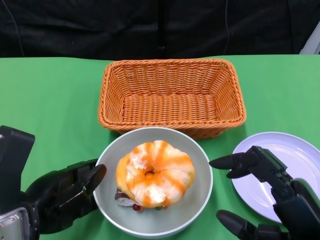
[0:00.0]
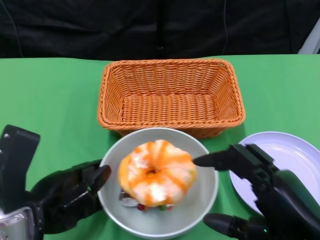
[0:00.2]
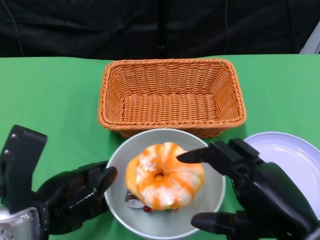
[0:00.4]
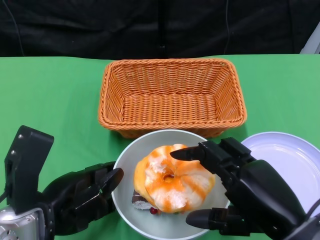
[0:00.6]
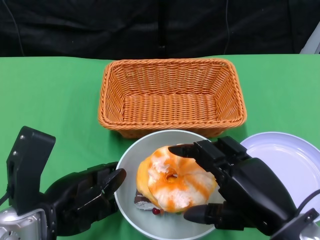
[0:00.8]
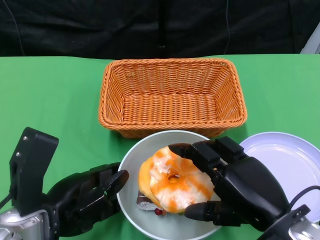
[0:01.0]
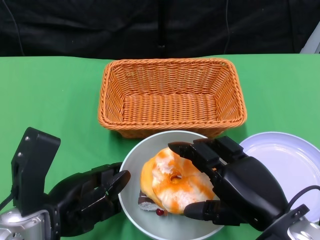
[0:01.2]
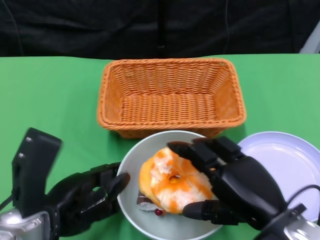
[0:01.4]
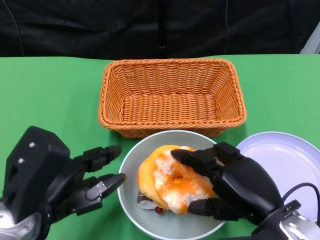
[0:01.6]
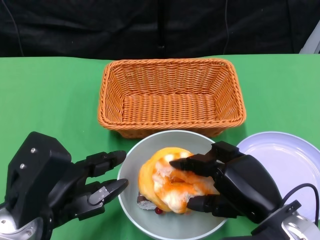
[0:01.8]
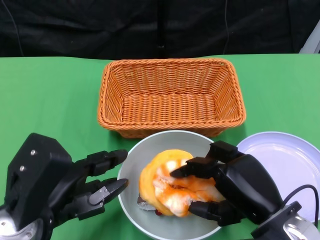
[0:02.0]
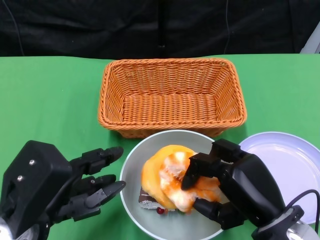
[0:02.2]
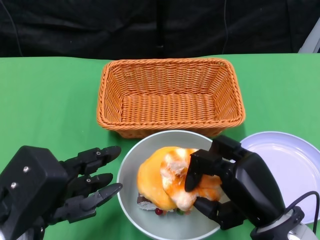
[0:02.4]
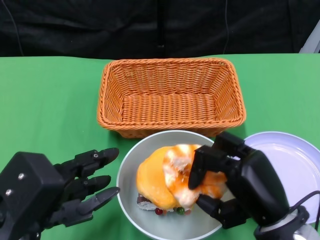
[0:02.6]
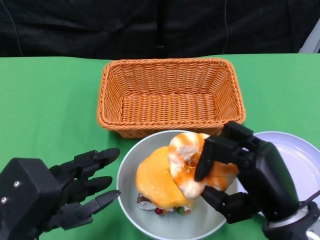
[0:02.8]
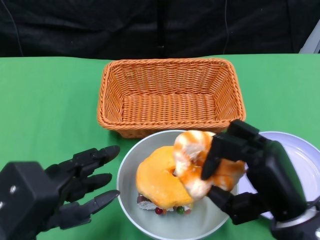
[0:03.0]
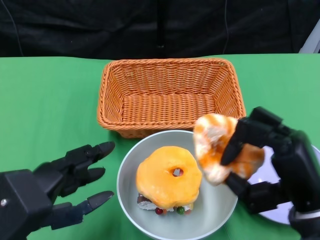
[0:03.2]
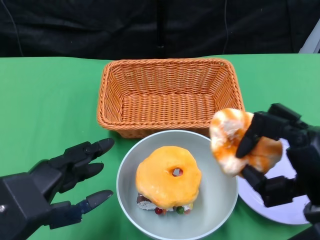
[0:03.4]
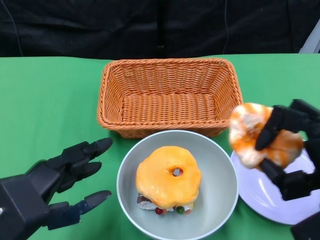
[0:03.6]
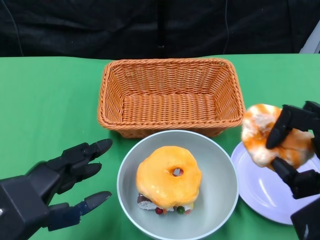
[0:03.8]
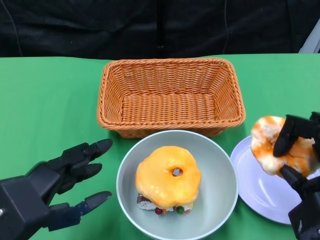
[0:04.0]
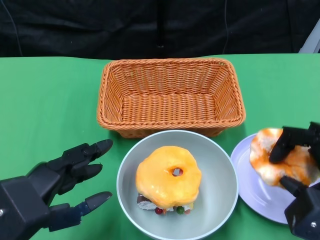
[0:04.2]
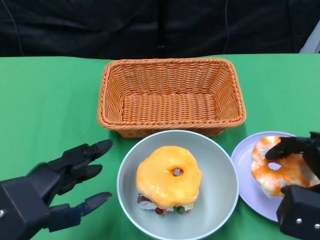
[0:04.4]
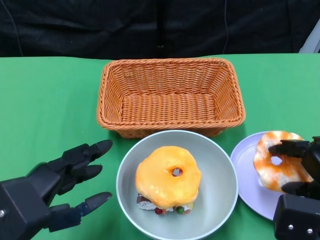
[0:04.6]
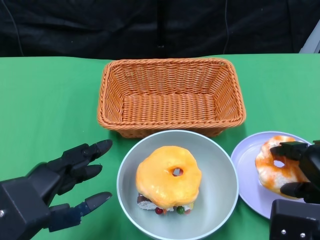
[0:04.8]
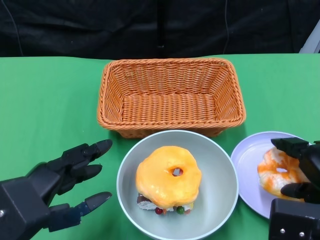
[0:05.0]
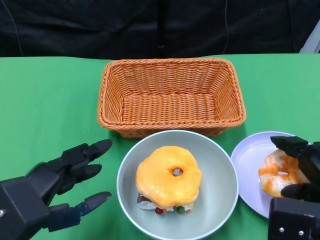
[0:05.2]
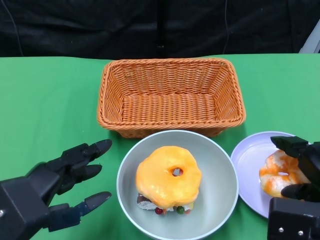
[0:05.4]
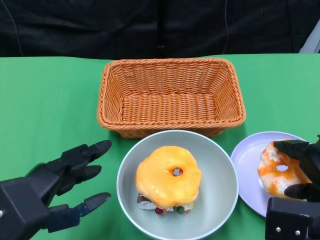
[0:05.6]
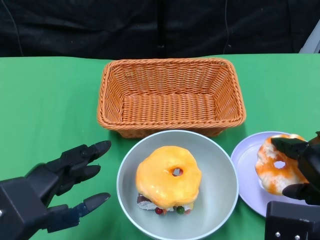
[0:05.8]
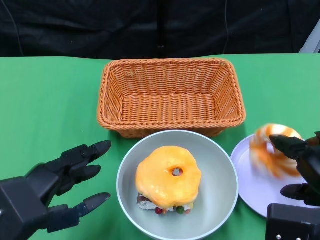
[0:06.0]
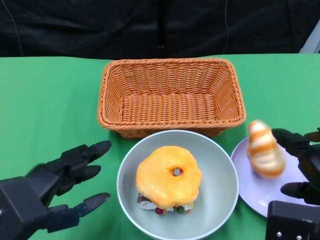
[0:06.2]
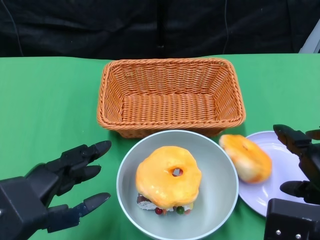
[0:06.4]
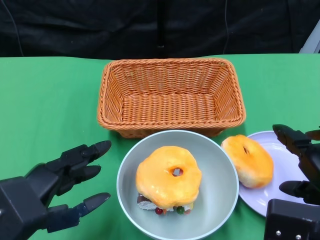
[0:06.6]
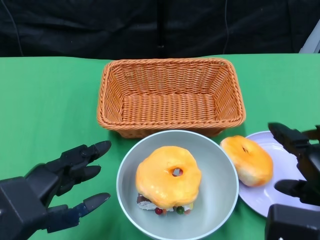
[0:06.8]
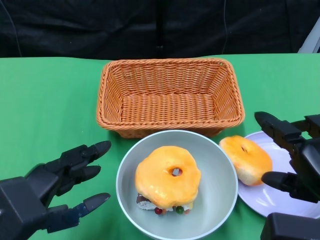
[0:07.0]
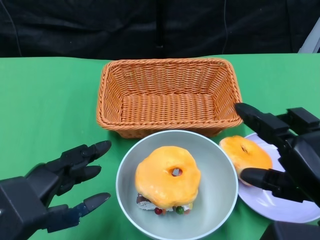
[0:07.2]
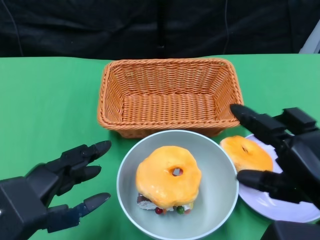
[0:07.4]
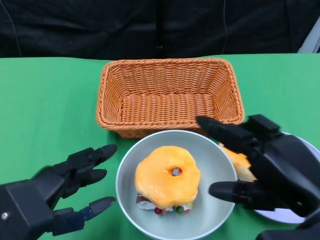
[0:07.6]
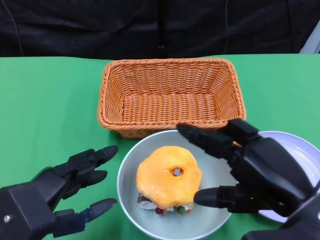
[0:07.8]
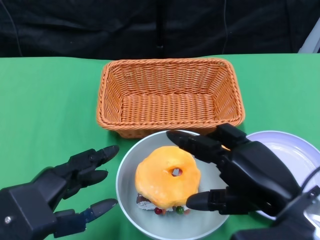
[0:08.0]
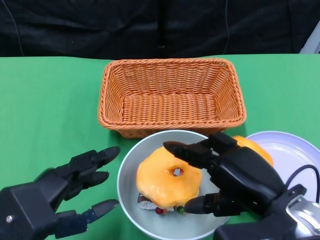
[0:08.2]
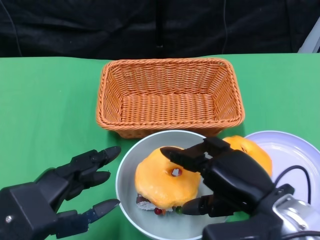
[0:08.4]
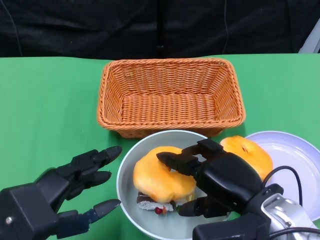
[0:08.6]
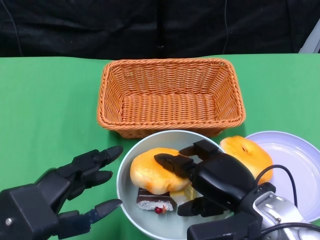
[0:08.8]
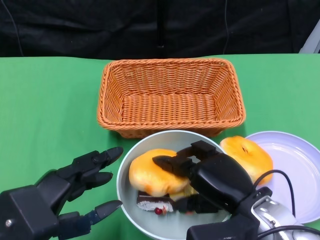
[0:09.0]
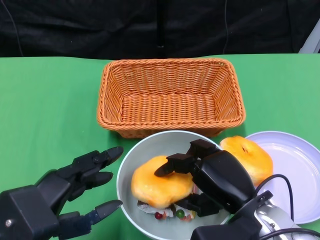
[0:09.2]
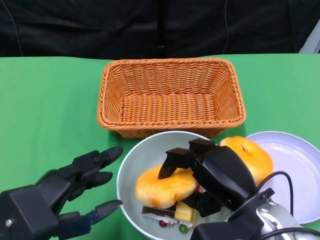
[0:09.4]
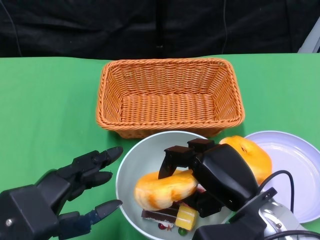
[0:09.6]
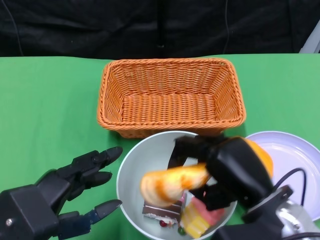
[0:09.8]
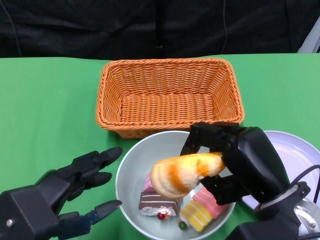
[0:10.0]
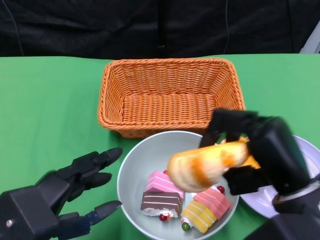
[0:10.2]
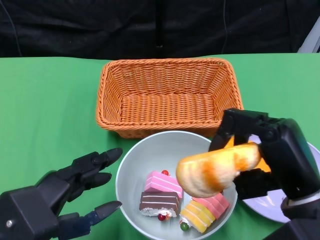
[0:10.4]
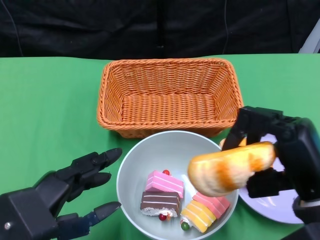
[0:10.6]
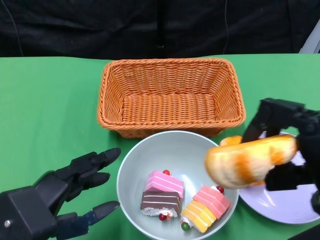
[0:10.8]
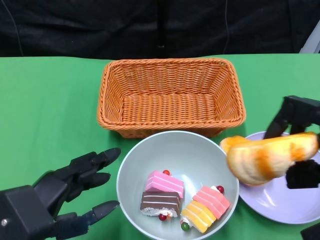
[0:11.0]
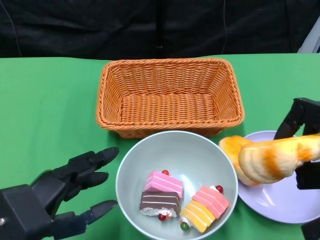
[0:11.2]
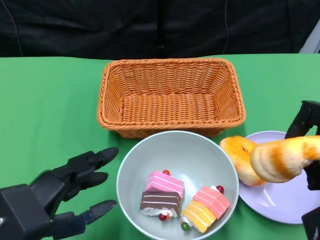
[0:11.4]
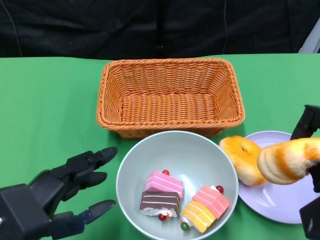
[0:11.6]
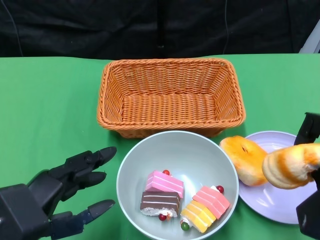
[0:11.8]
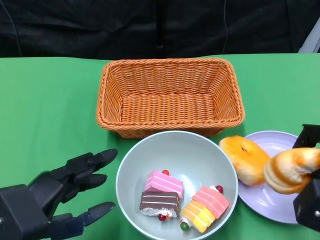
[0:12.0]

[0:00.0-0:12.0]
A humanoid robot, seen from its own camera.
0:00.0 to 0:01.6: The right hand shifts approximately 5 cm forward.
0:03.0 to 0:04.4: The right hand goes approximately 10 cm to the right.
0:06.0 to 0:07.6: The right hand shifts by about 5 cm.
0:07.6 to 0:09.0: The right hand travels downward, to the left and forward by some 10 cm.
0:09.0 to 0:10.4: The right hand is displaced upward and to the right by approximately 10 cm.
0:10.4 to 0:12.0: The right hand goes some 10 cm to the right.

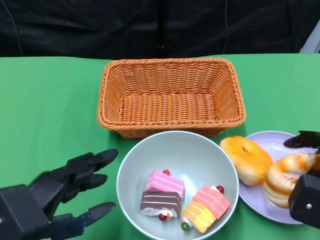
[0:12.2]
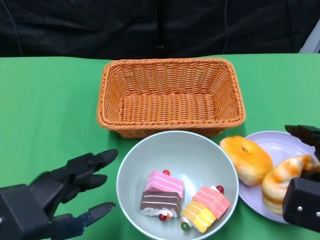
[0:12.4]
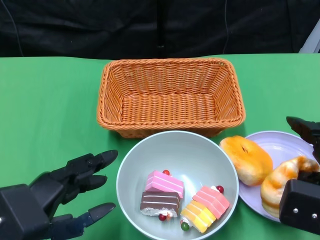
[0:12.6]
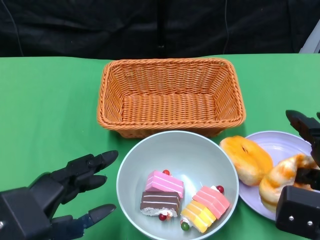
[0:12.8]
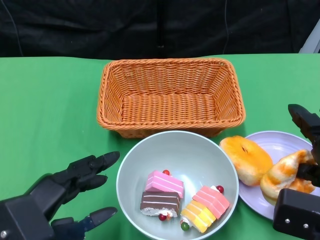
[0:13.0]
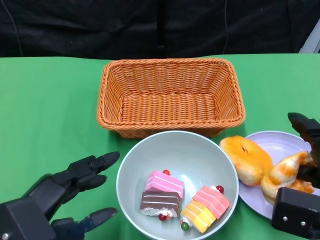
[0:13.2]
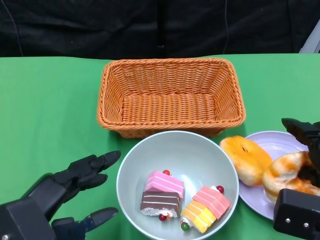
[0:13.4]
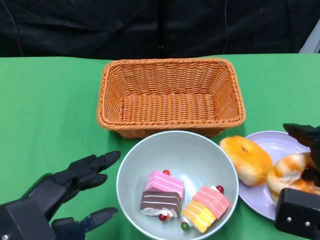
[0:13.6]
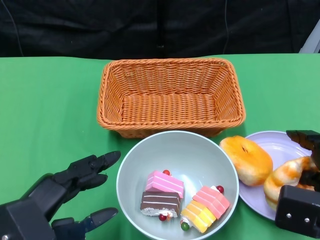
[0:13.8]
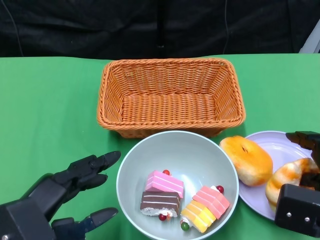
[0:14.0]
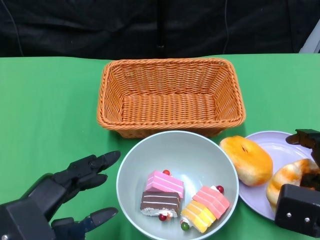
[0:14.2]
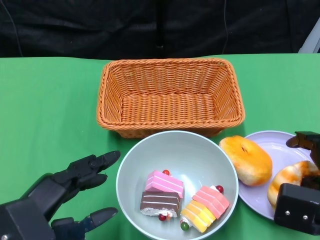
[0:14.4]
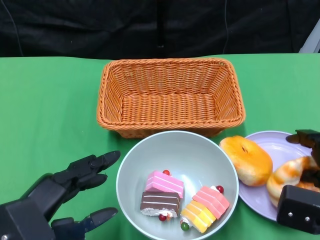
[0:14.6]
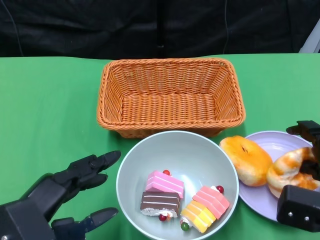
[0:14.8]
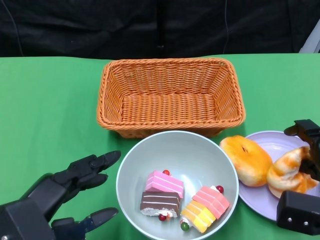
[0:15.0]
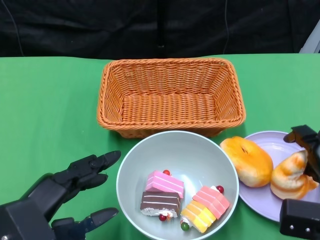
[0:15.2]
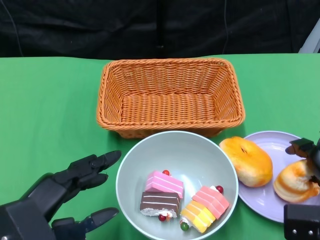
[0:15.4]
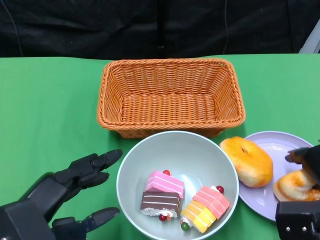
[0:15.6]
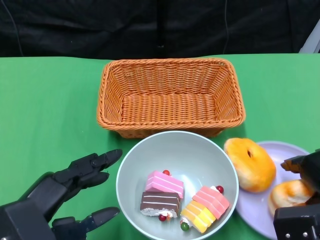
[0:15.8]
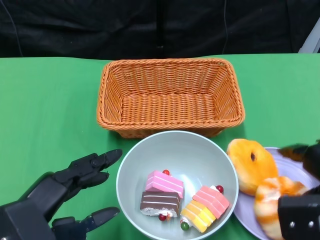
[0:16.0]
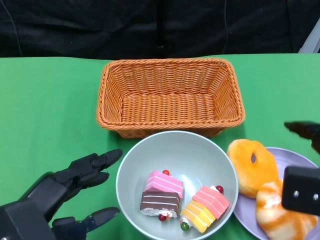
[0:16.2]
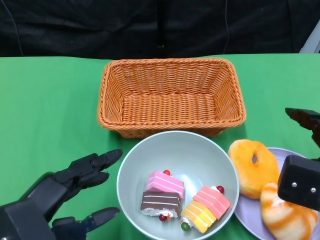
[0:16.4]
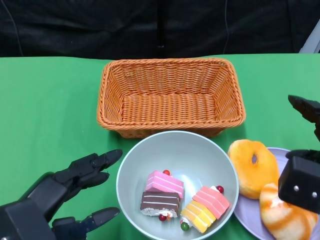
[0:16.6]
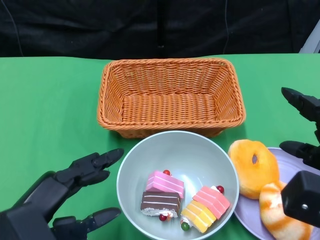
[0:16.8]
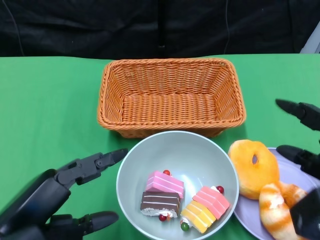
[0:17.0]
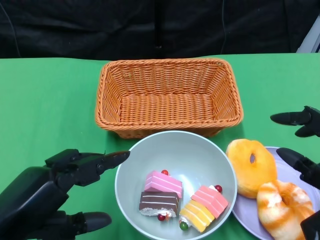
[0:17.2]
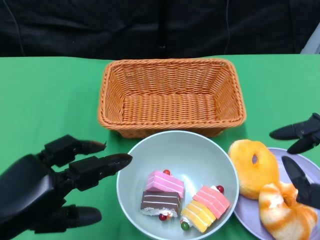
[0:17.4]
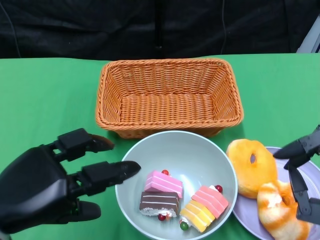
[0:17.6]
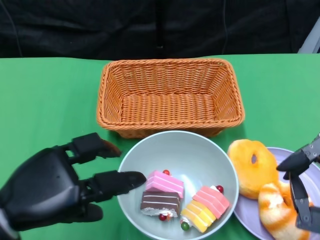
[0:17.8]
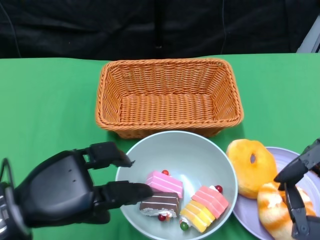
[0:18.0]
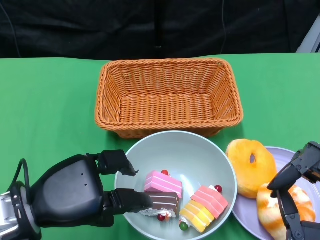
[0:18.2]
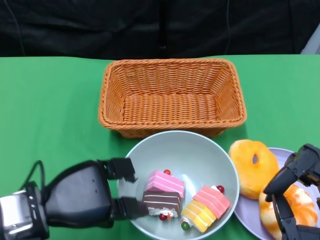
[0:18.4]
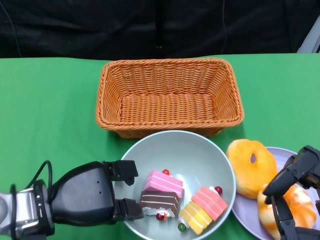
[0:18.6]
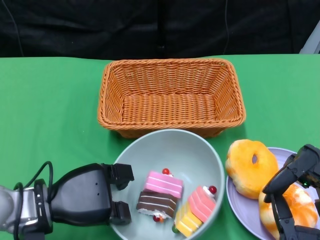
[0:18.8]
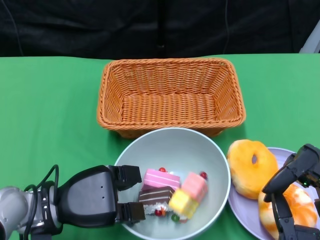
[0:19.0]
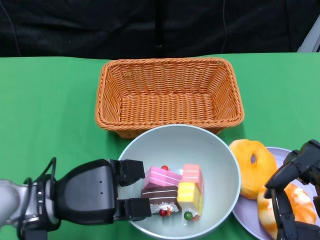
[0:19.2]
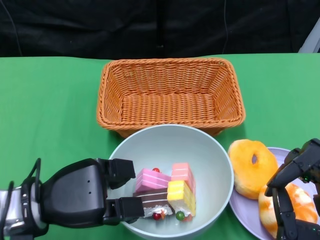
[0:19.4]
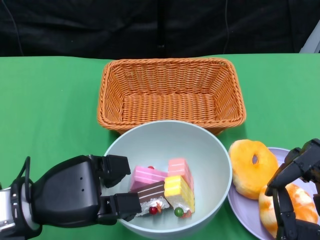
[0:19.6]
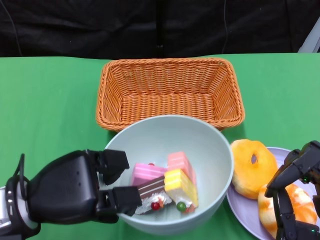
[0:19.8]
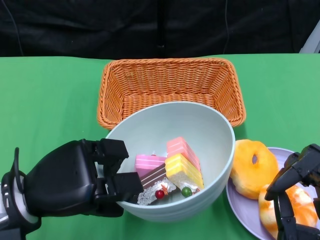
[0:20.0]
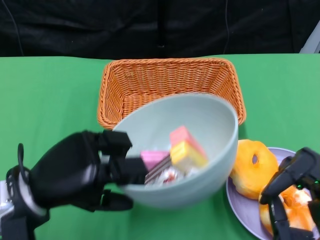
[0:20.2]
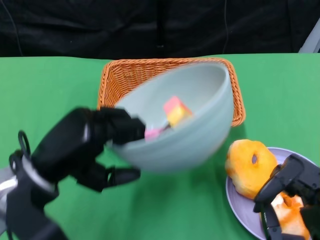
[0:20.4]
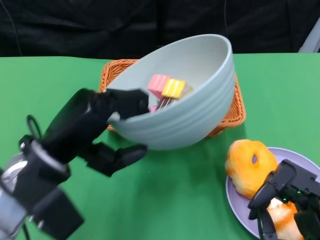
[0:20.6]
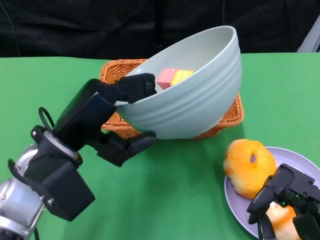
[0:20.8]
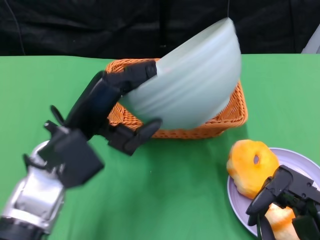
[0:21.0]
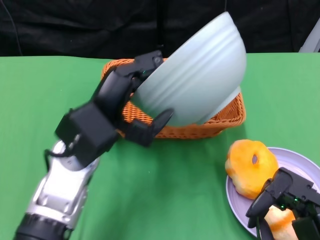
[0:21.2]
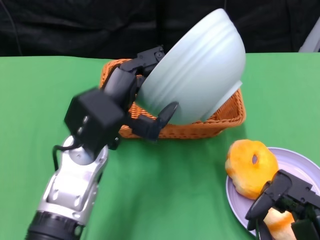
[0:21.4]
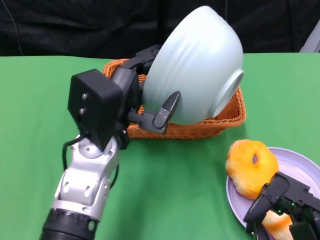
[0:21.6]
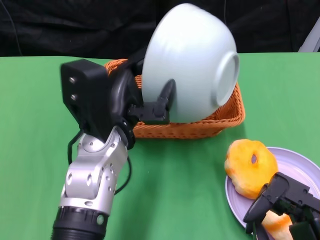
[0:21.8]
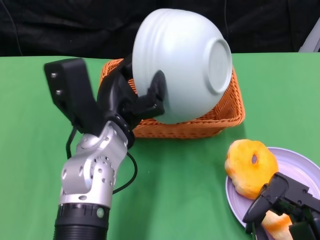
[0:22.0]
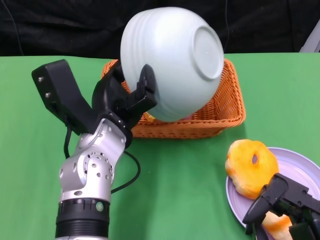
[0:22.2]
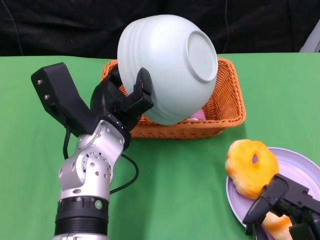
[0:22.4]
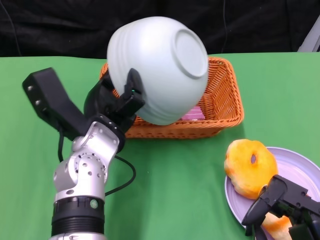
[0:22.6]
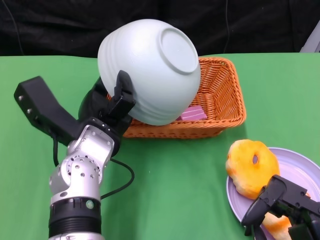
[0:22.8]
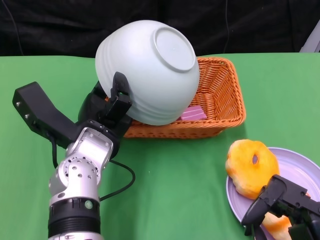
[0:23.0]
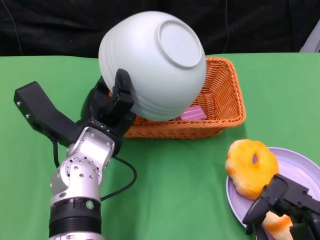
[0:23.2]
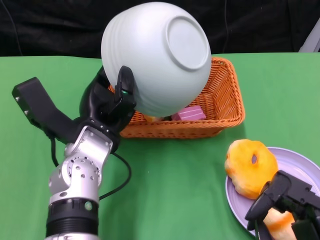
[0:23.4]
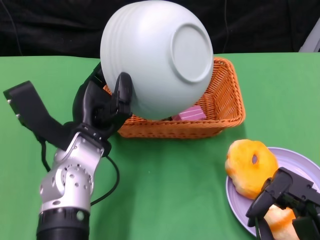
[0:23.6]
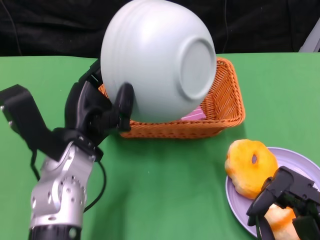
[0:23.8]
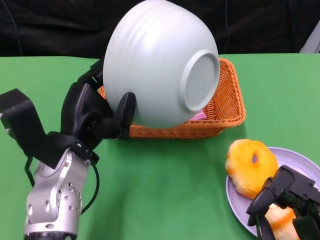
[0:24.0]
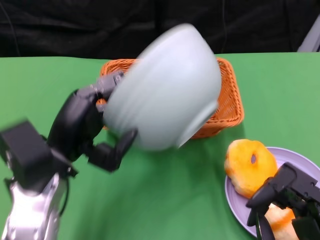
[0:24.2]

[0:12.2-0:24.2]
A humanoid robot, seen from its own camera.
Step, 0:12.2 to 0:16.4: Pick up the bread with the right gripper and place it on the plate.
Step, 0:16.6 to 0:19.2: Grasp the bowl with the left gripper.
Step, 0:19.4 to 0:23.2: Pour the cake into the basket with the left gripper.
0:12.2 to 0:13.8: There are only small adjustments of the hands.
0:13.8 to 0:15.2: The right hand travels downward by roughly 5 cm.
0:15.2 to 0:16.6: The right hand is displaced upward by roughly 5 cm.
0:16.6 to 0:18.2: The left hand heads forward, covering some 5 cm. The right hand goes roughly 10 cm backward.
0:19.8 to 0:21.2: The left hand heads to the right and forward, covering approximately 10 cm.
0:22.6 to 0:24.2: The left hand moves to the left, roughly 5 cm.
